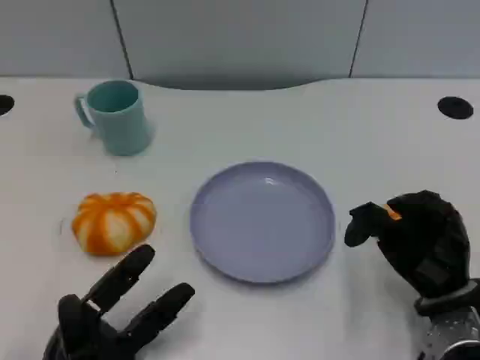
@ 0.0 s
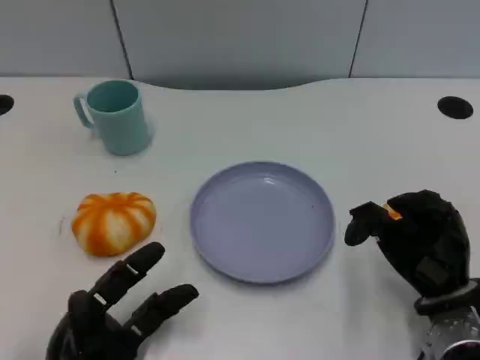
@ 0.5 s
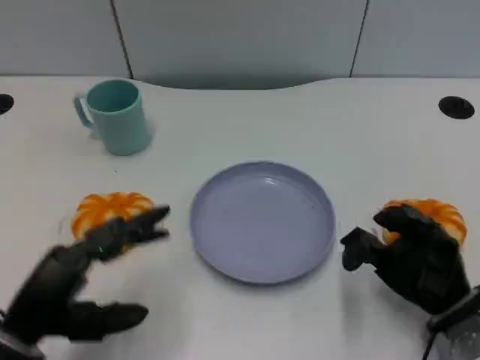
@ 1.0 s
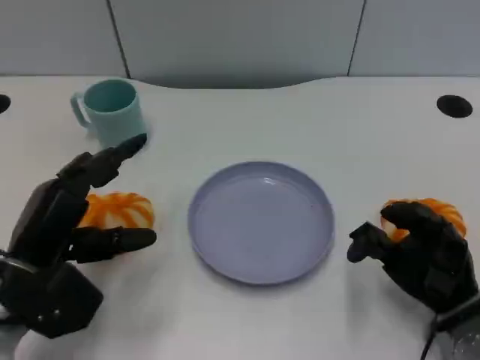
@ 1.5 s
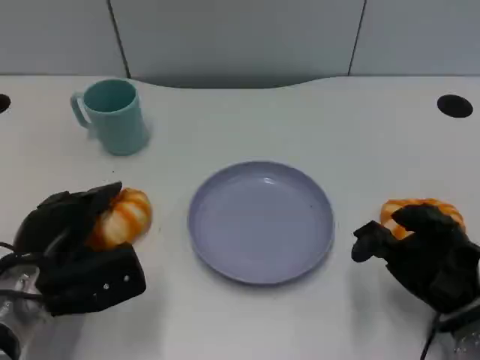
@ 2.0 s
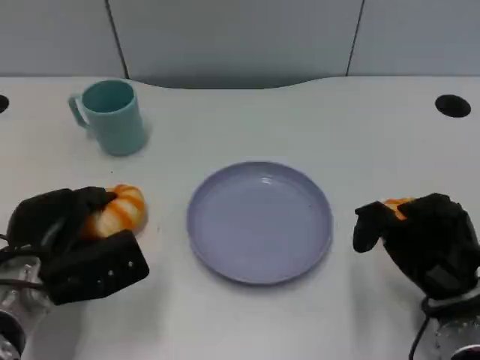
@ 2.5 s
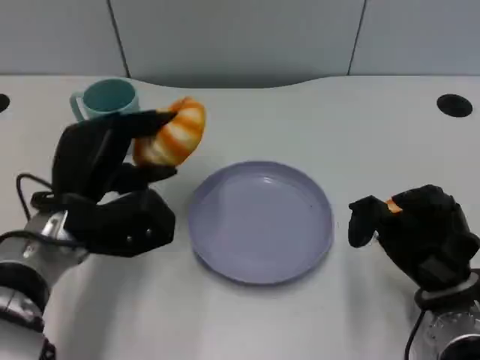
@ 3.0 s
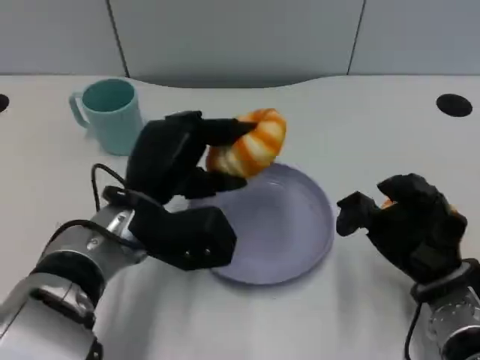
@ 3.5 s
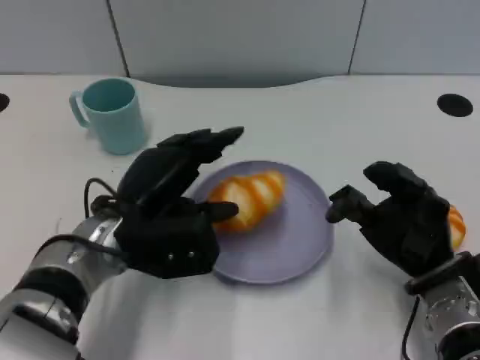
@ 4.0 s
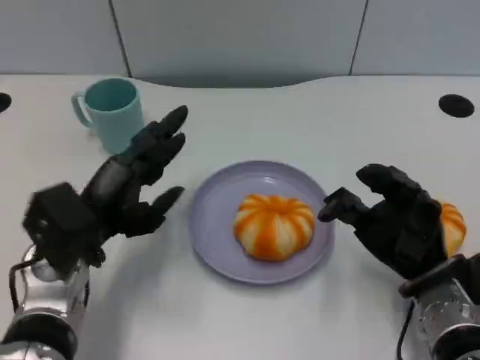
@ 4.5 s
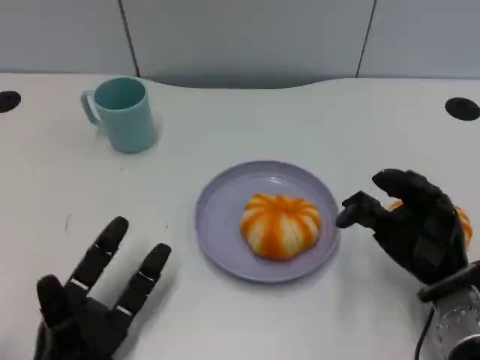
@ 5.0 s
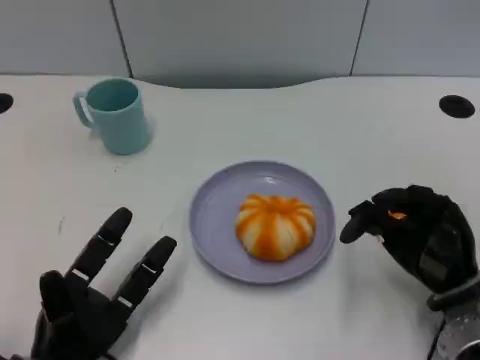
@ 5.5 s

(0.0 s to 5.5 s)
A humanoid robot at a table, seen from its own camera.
Task of the whole recording: Grasp the bread from the table and place it into the plate.
0.0 s - 2.0 s: The left hand is displaced forward and upward by some 10 cm.
2.0 s - 3.5 s: The left hand is displaced to the right and upward by approximately 10 cm.
3.5 s - 5.5 s: The left hand goes roughly 20 cm backward, to the left and downward.

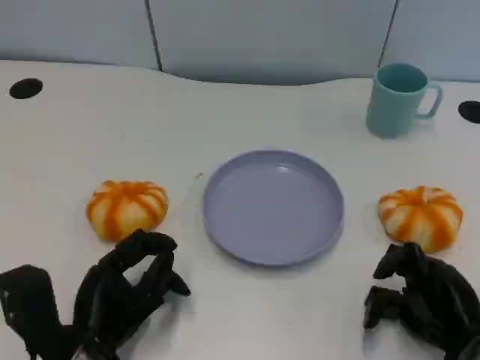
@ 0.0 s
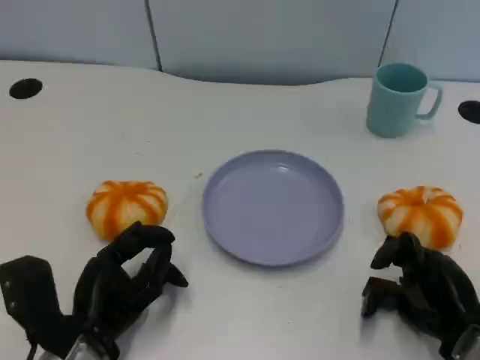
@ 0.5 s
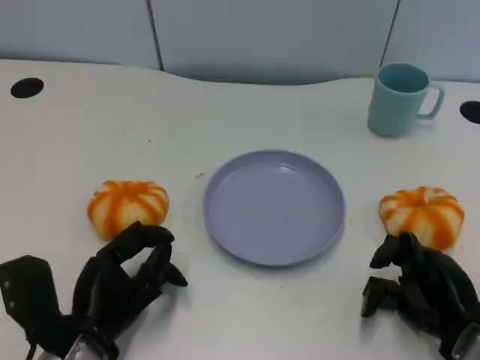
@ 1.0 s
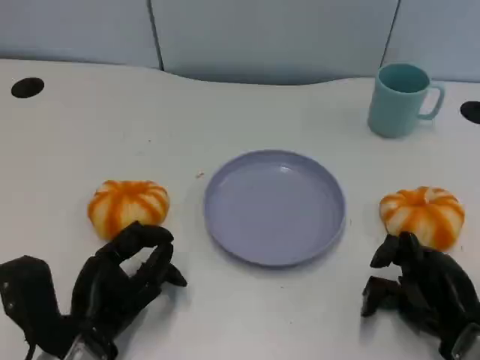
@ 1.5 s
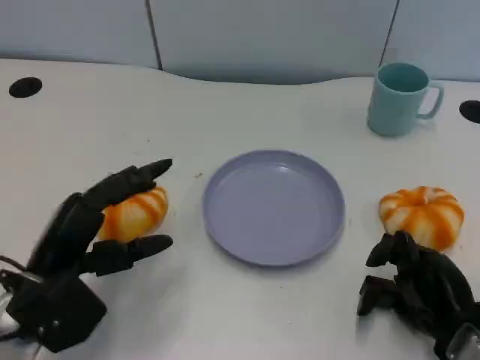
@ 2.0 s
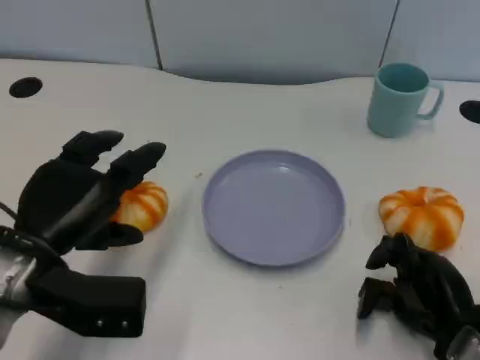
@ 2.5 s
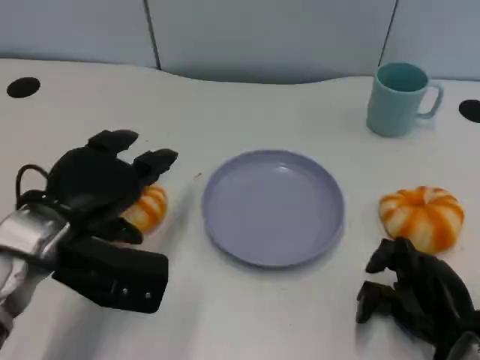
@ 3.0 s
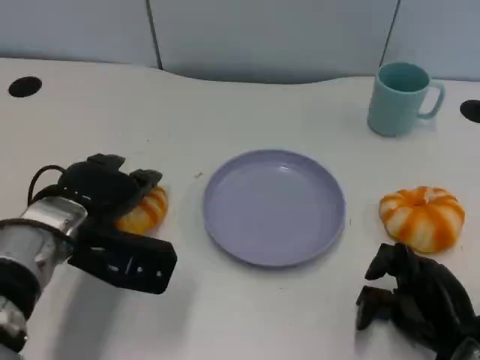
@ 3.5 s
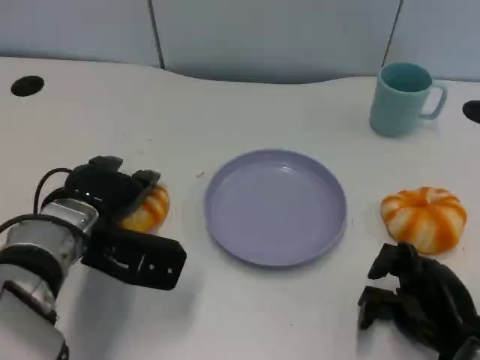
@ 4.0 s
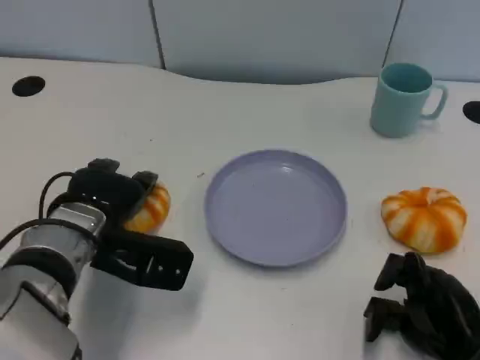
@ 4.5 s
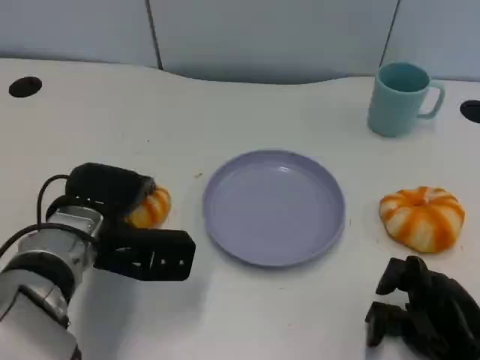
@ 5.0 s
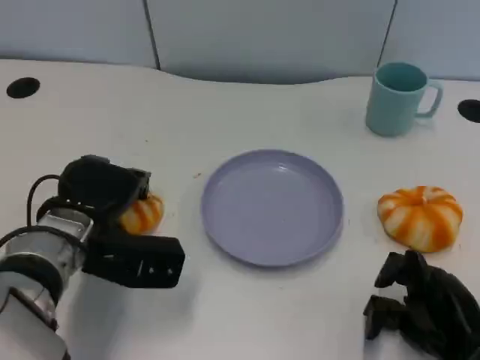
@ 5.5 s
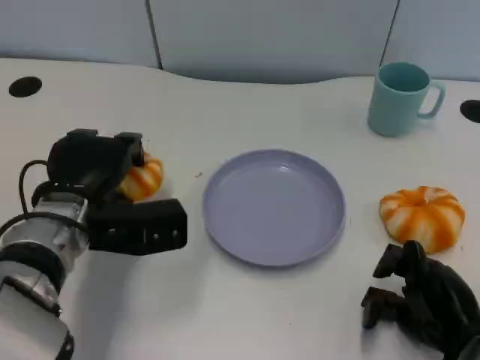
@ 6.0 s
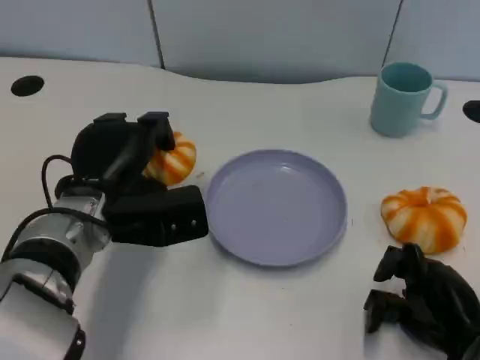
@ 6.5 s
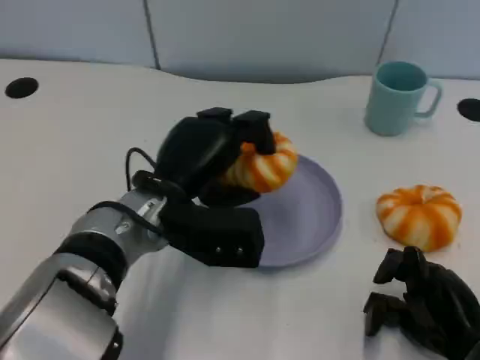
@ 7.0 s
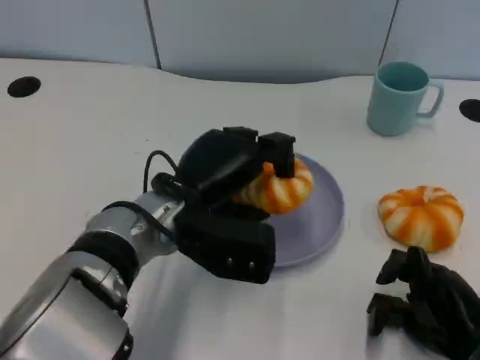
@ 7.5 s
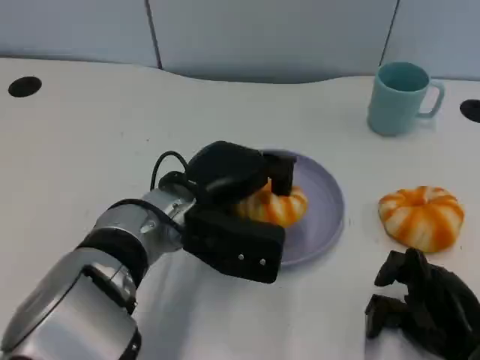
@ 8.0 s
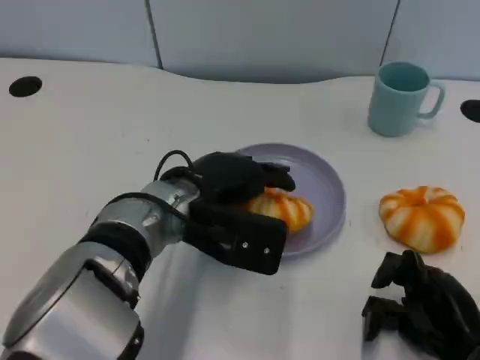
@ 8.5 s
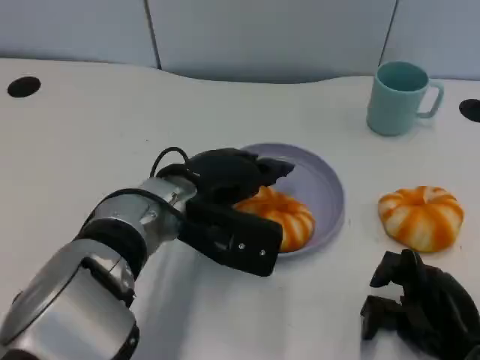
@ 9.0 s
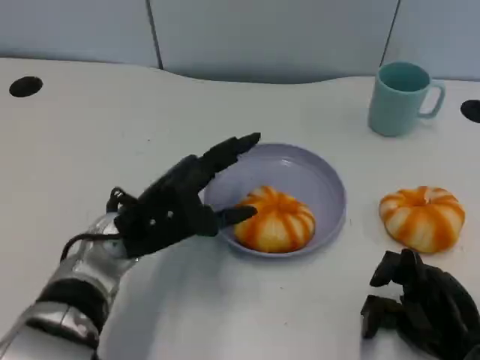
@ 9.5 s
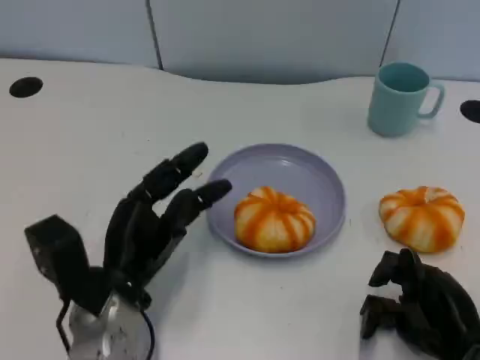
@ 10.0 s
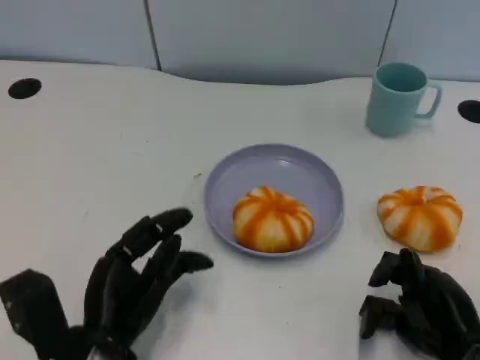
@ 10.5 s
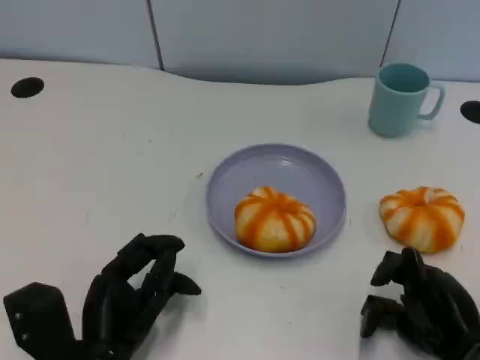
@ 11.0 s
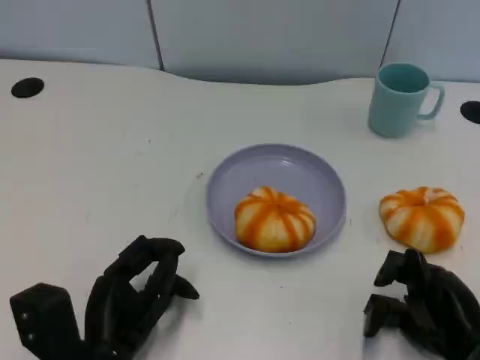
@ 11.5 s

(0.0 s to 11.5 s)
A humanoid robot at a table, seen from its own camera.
Task of the whole recording: Grasp the bread from the table and place it into the plate.
0.0 s - 2.0 s: The left hand is displaced upward by roughly 5 cm.
2.0 s - 4.0 s: The left hand travels forward by some 10 cm.
6.0 s - 7.5 s: The left hand shifts some 10 cm to the right.
7.5 s - 9.5 s: The left hand heads to the left, covering some 5 cm.
9.5 s - 11.5 s: The left hand moves backward and downward, some 10 cm.

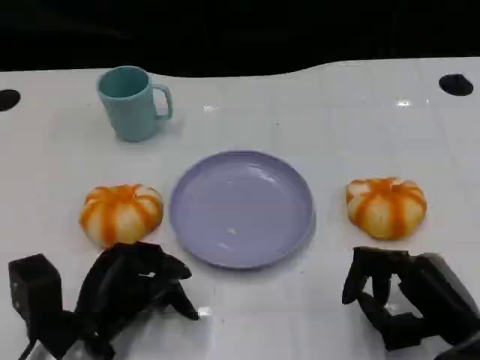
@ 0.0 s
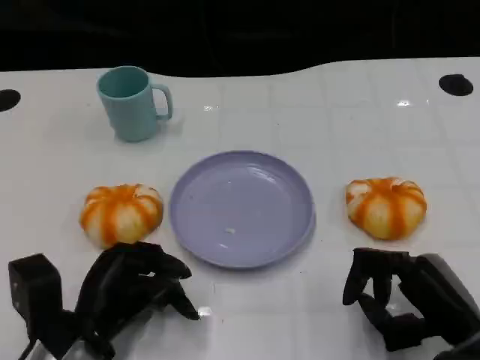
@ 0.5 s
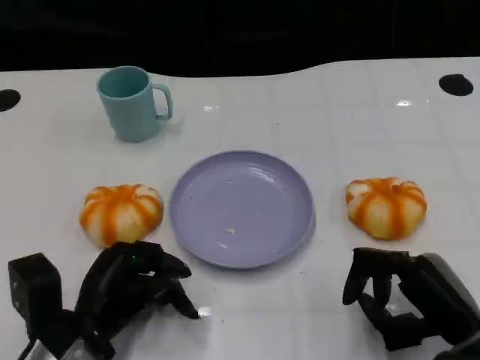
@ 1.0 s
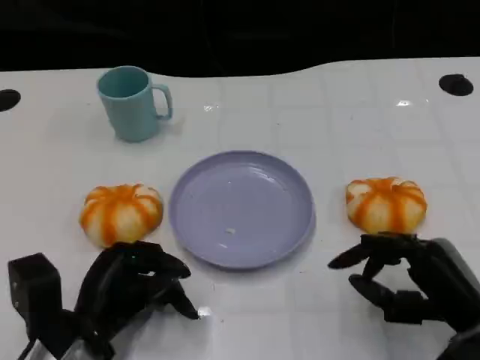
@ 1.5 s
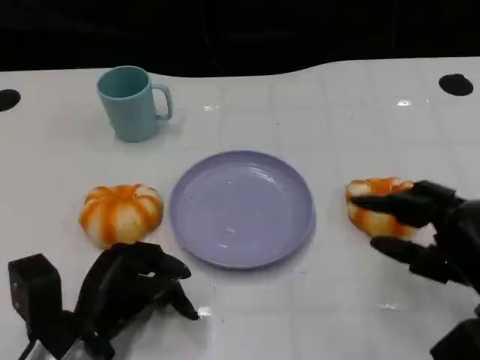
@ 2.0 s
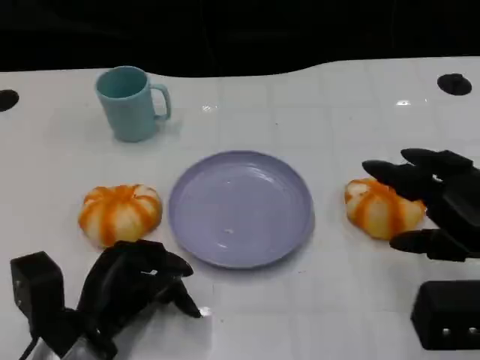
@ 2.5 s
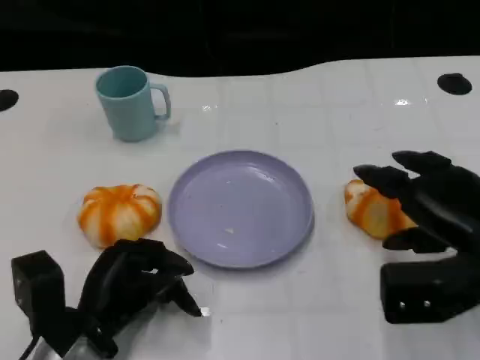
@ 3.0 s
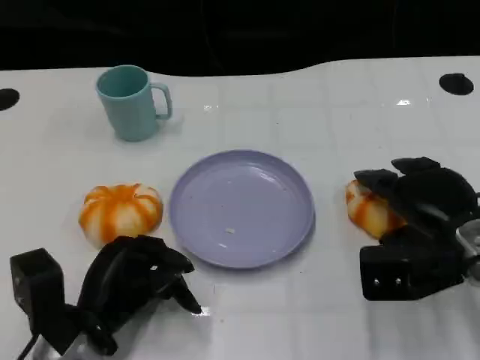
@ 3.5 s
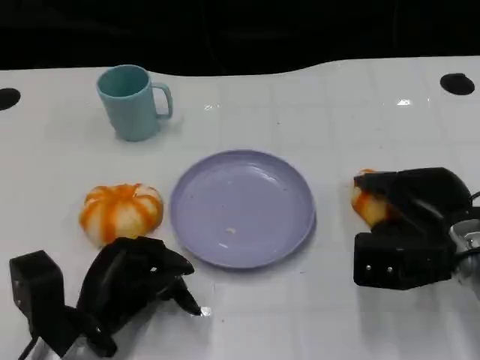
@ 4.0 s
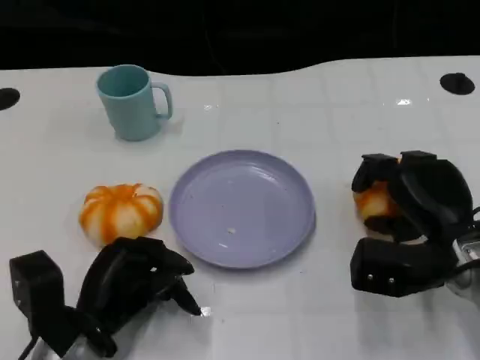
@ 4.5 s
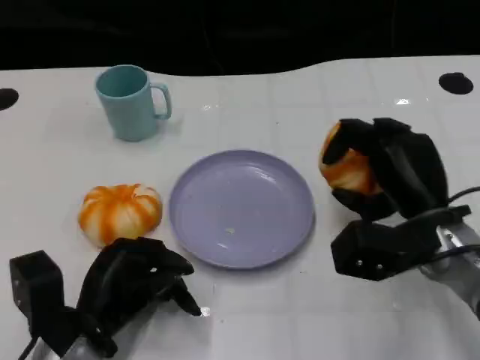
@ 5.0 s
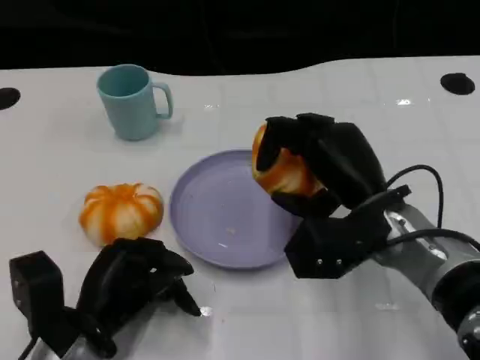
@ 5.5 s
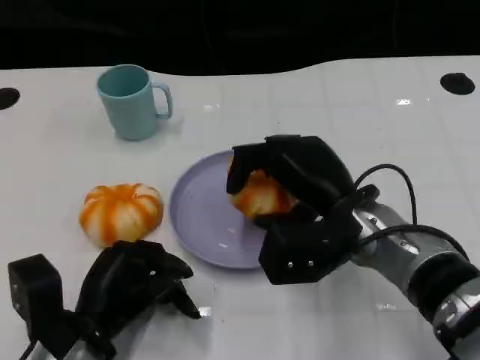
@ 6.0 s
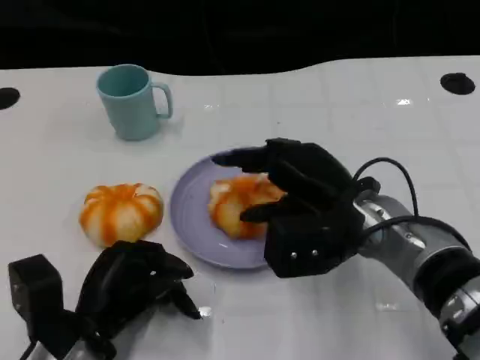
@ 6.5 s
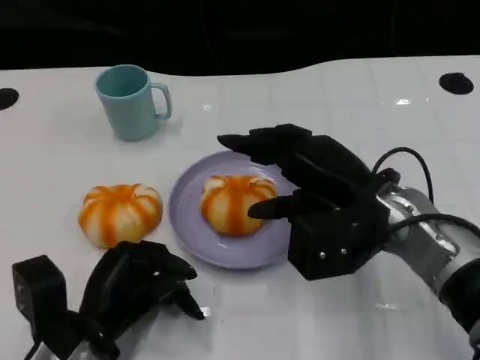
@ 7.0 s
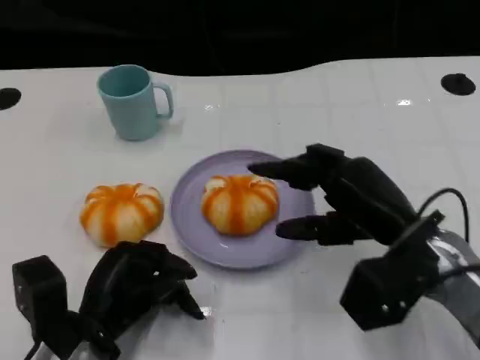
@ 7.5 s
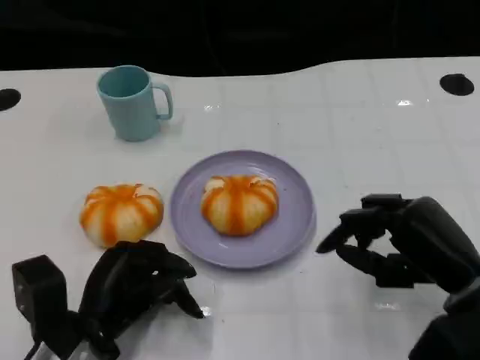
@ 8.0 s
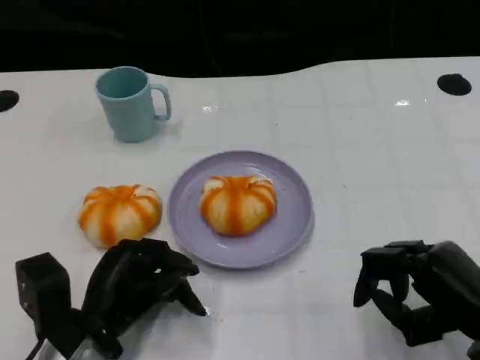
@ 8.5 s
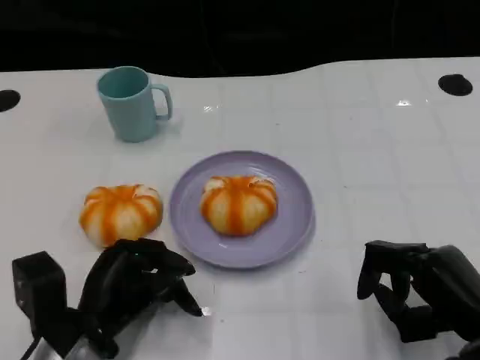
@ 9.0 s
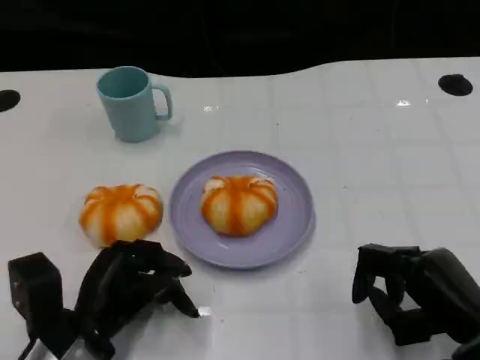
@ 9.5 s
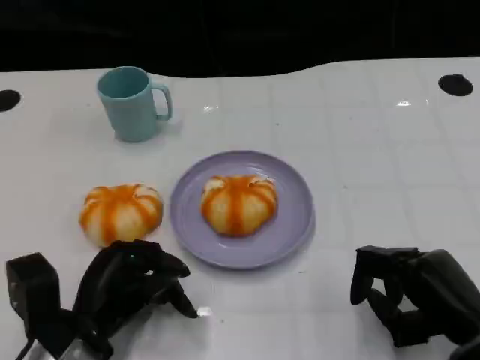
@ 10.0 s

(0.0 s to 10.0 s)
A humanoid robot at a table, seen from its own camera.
Task of the whole recording: Grasp the bread from the table and place it into the plate.
0.0 s - 2.0 s: The right hand moves approximately 5 cm.
2.0 s - 4.0 s: The right hand shifts some 10 cm forward.
4.0 s - 6.0 s: The right hand is displaced to the left by about 10 cm.
6.0 s - 8.0 s: The right hand travels to the right and backward by roughly 15 cm.
8.0 s - 10.0 s: The right hand ends up some 5 cm from where it was.
